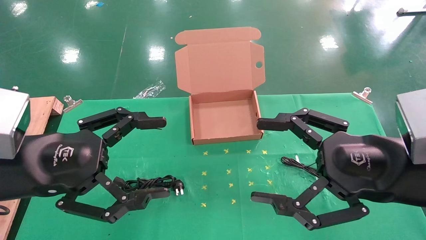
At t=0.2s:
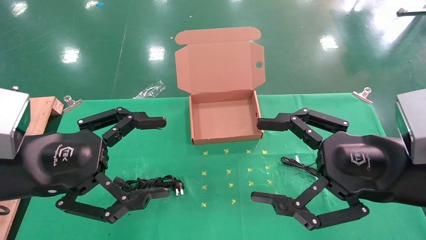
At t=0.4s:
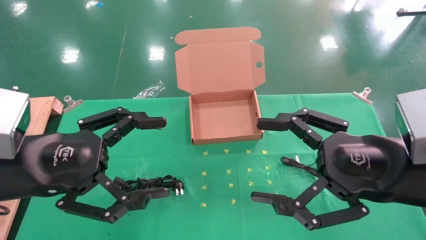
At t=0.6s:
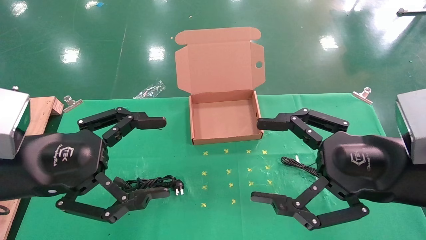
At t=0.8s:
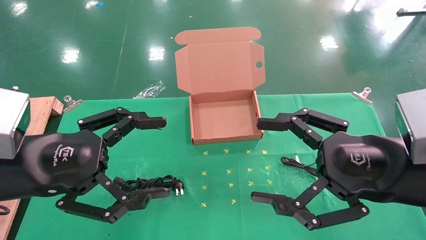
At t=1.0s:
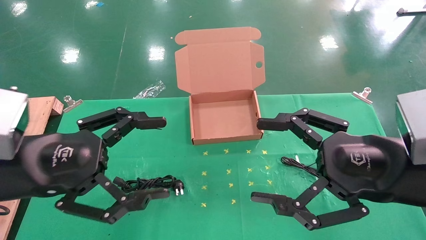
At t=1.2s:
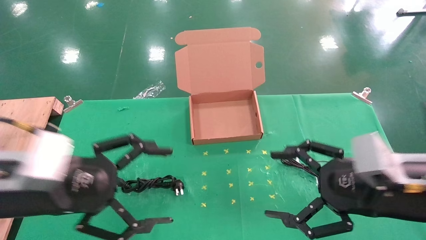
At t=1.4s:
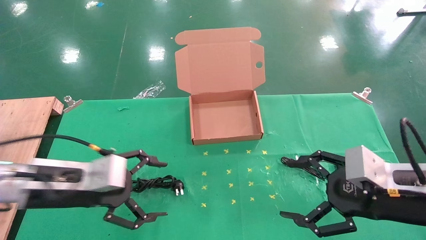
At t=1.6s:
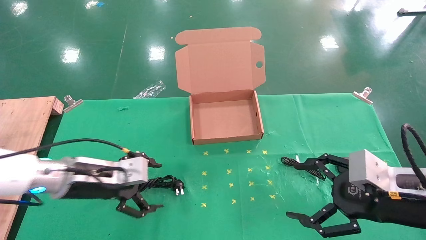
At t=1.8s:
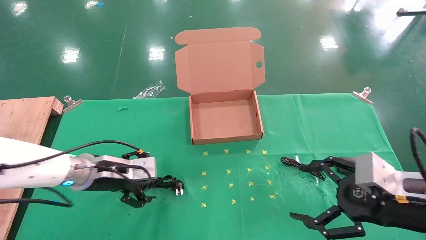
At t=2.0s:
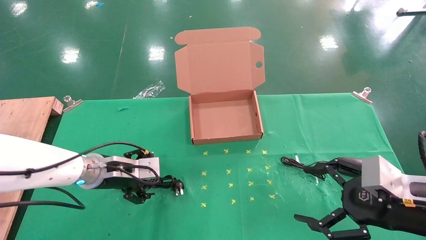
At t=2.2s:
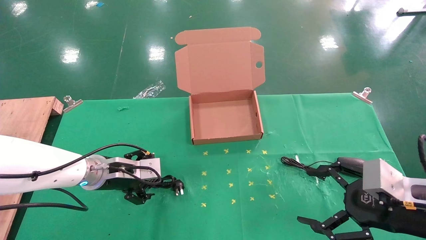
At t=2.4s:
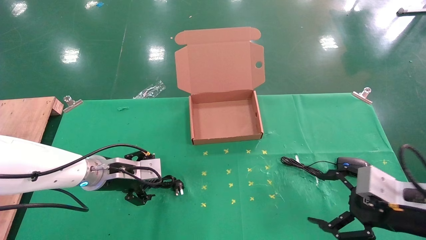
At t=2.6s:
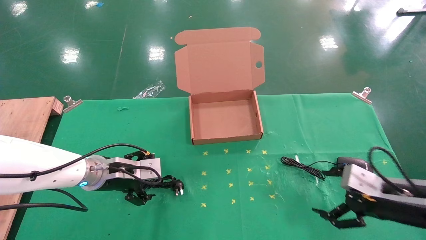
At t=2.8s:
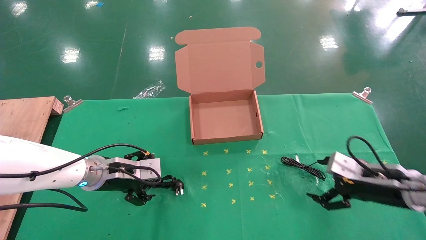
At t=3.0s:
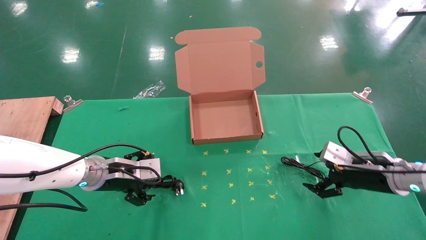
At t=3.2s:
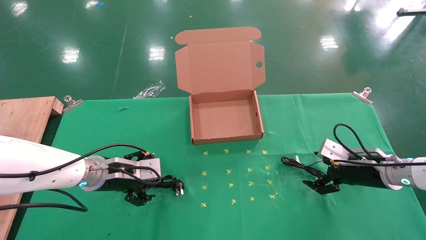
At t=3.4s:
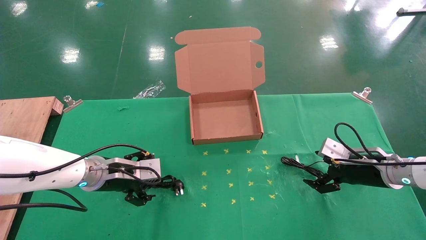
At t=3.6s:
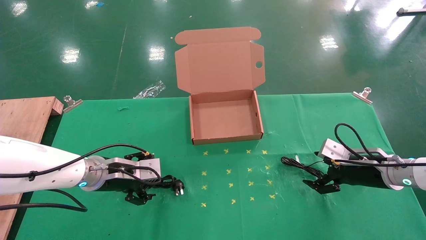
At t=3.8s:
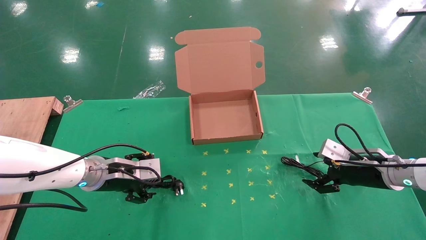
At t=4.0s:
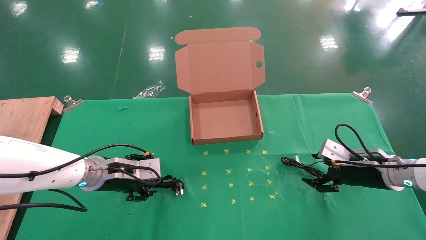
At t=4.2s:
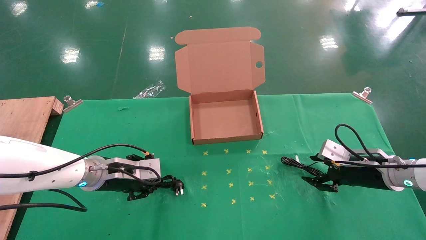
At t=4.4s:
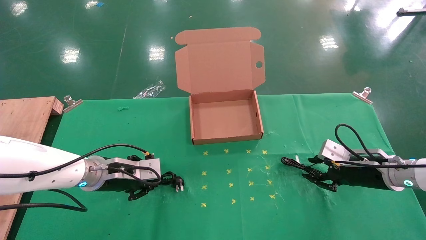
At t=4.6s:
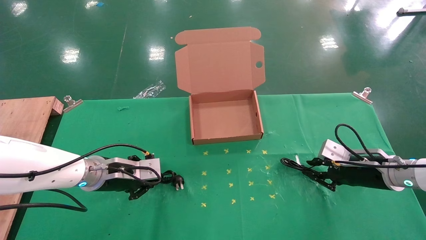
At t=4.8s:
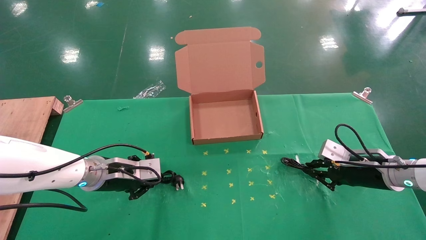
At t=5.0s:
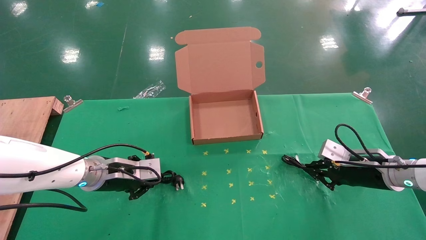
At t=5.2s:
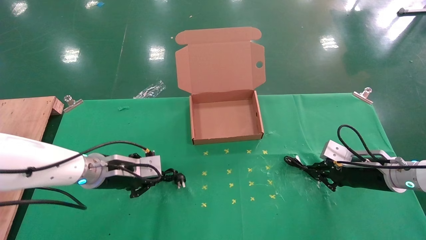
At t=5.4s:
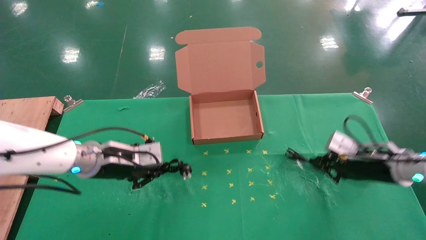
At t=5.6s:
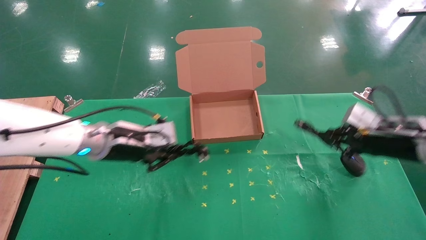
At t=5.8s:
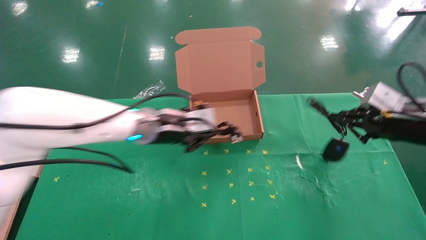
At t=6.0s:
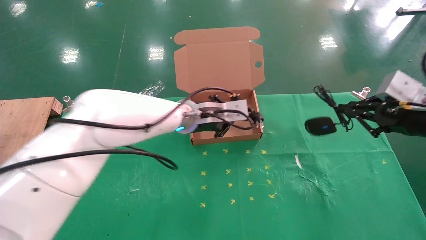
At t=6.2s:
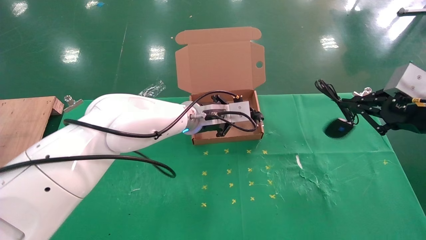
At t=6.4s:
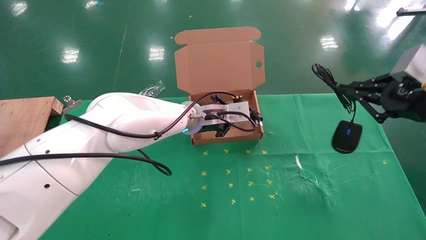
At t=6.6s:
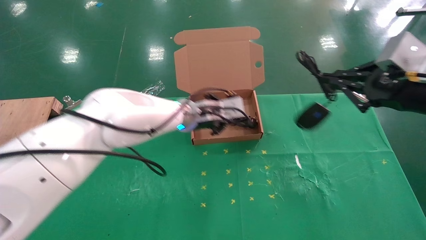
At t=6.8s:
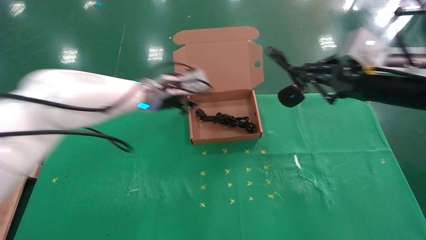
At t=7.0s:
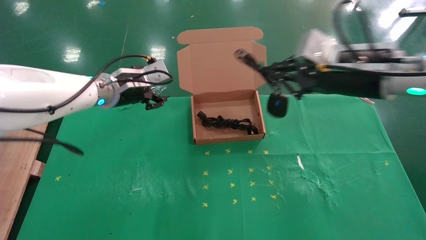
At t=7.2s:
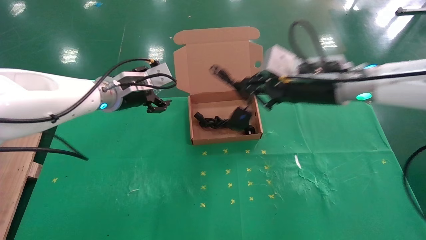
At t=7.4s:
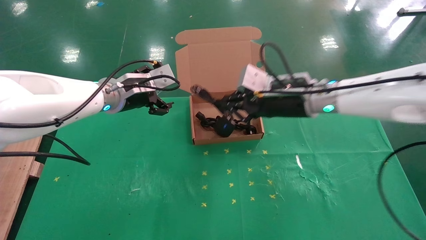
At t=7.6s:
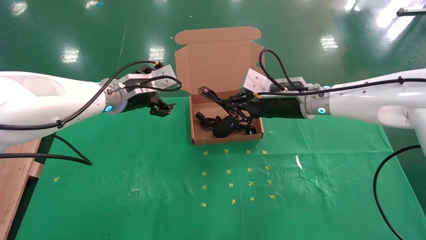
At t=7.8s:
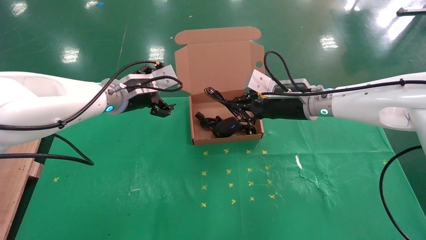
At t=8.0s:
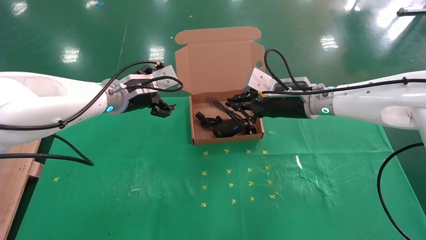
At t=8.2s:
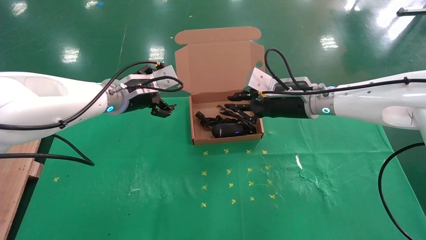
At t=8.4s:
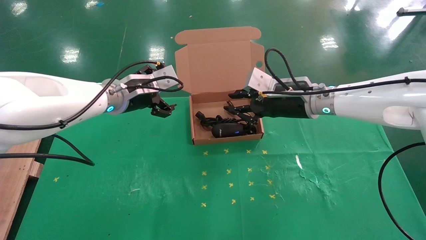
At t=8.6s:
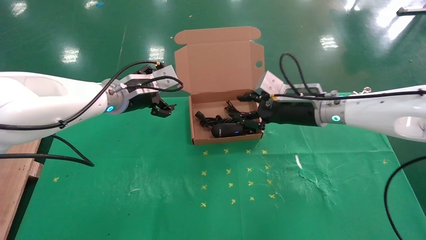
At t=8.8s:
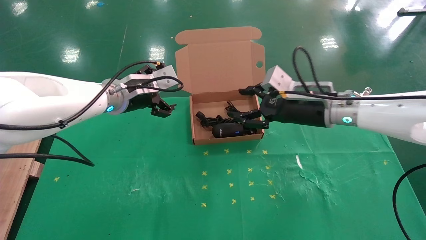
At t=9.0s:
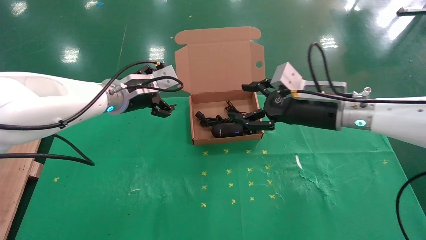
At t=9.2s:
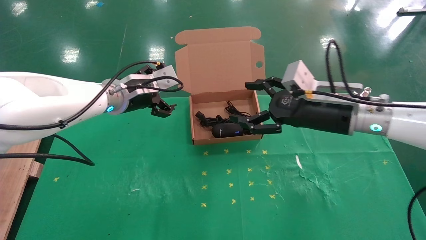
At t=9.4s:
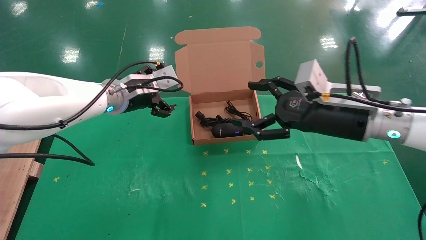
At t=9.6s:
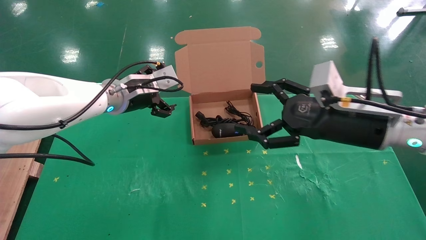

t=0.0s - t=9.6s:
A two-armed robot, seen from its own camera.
Task of the whole recording: grasp data cable left put into box grasp mouse right put into box.
Step, t=1.2s - t=4.6s: Simultaneously pick up the mouse and power cord from the accessory packaging area.
Step, t=4.8s - t=8.4s: Place the mouse and power cord into the box.
t=0.0s - t=1.6s: The right gripper goes roughly 10 cm downward and to the right. The left gripper moves forward and downward, about 15 cm.
t=1.6s - t=3.2s: The left gripper moves roughly 5 cm; the right gripper heads forward and downward, covering approximately 15 cm.
t=3.2s - t=4.8s: The left gripper closes its fingers. The right gripper closes.
t=4.8s - t=6.4s: The right gripper heads upward and backward, covering roughly 20 cm; the left gripper is displaced to the right, upward and forward by some 20 cm.
t=6.4s - t=8.0s: The left gripper goes some 15 cm to the left and upward, and opens up, while the right gripper goes approximately 25 cm to the left and forward.
t=8.0s - t=9.6s: The right gripper heads backward and to the right, covering some 15 cm, and opens its fingers.

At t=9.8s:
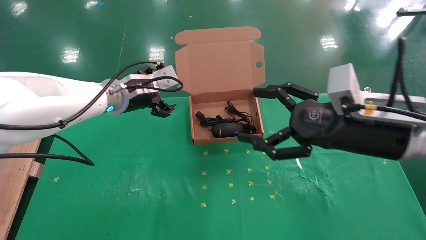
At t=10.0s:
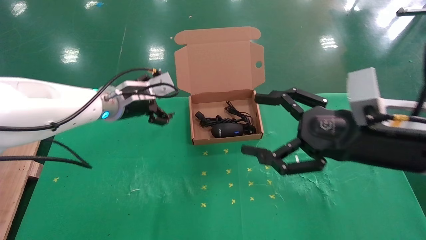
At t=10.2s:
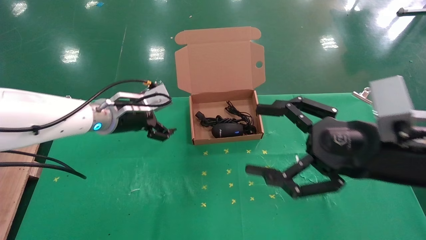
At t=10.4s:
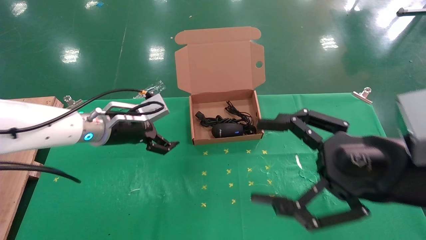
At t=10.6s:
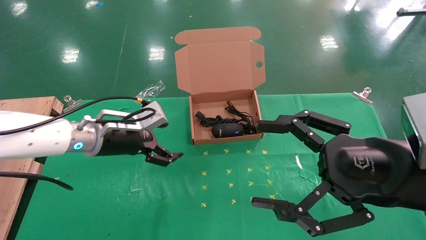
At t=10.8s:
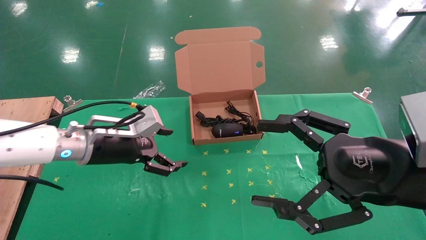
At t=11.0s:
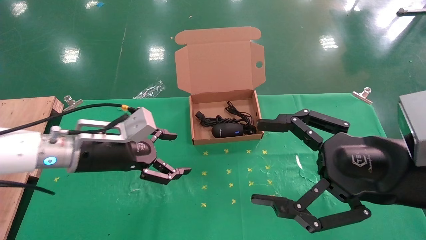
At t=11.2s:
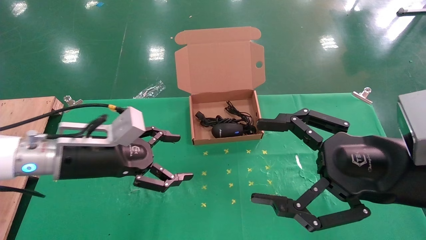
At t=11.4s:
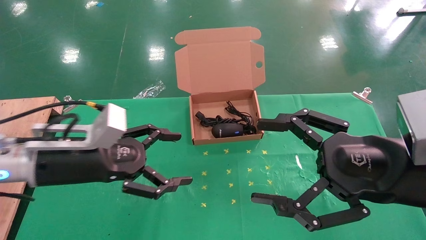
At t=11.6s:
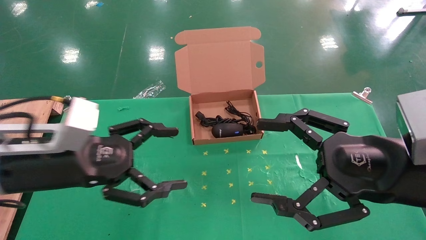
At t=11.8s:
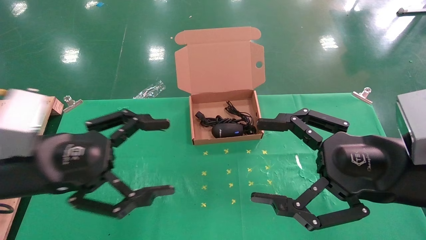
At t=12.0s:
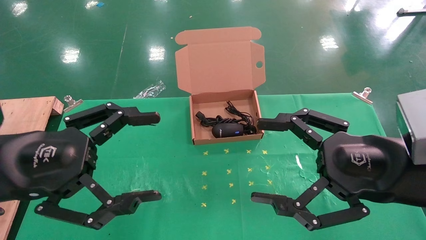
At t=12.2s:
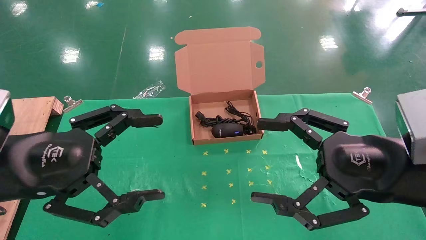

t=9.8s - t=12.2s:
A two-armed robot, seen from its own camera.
Task of the whole recording: grasp data cable left put into box grasp mouse right put into box.
t=9.8s - t=11.0s: The right gripper travels backward by about 10 cm. Meanwhile the left gripper travels backward and downward by about 10 cm.
t=11.0s - t=12.2s: The left gripper heads backward and upward, covering roughly 15 cm.
